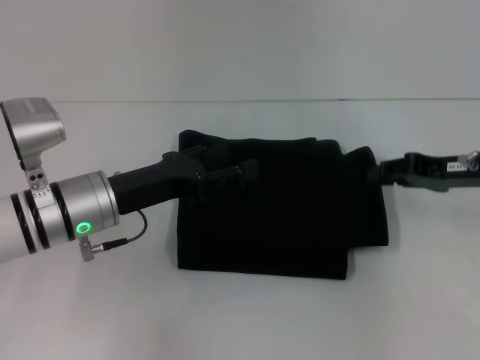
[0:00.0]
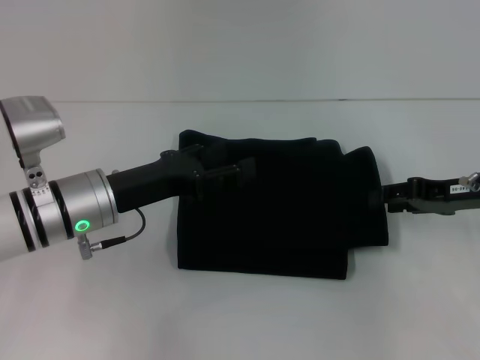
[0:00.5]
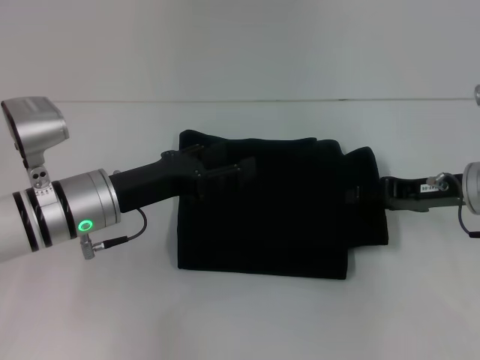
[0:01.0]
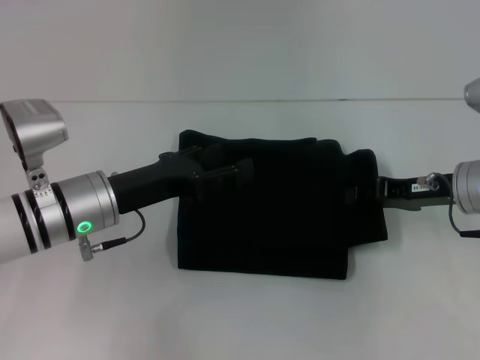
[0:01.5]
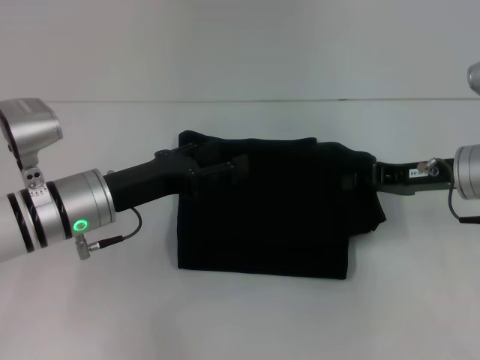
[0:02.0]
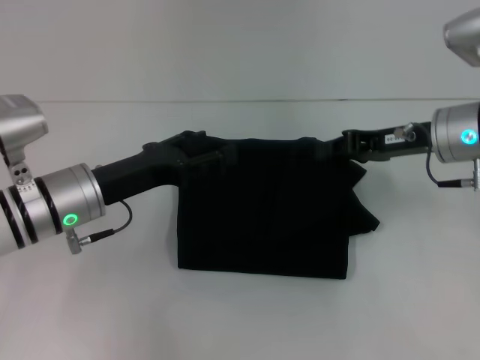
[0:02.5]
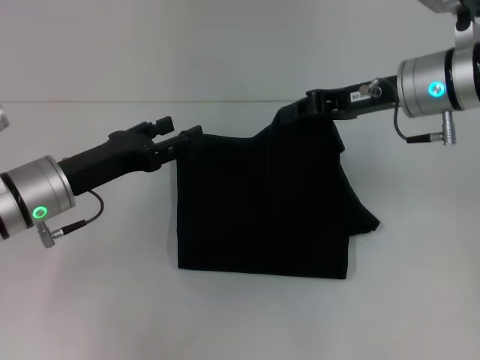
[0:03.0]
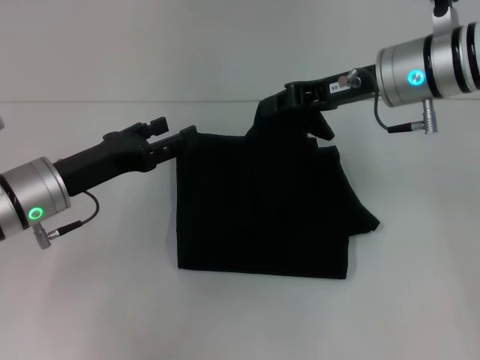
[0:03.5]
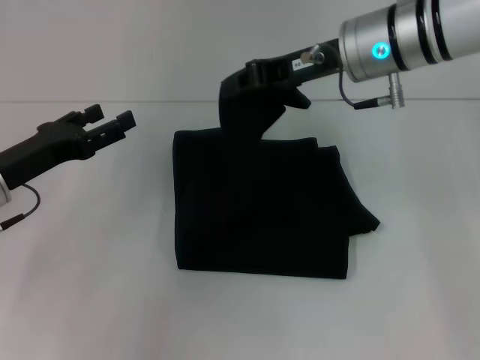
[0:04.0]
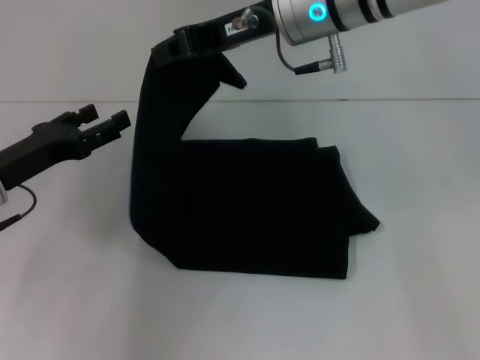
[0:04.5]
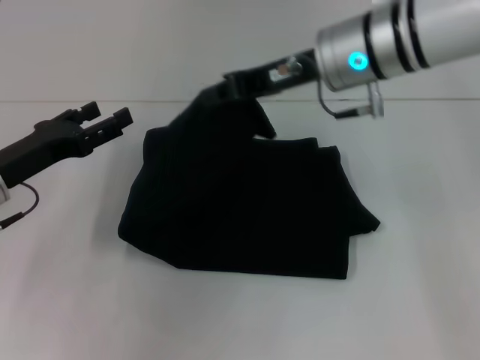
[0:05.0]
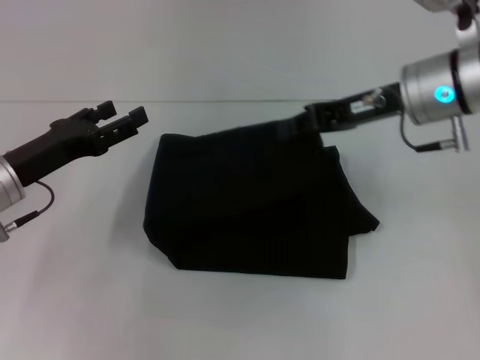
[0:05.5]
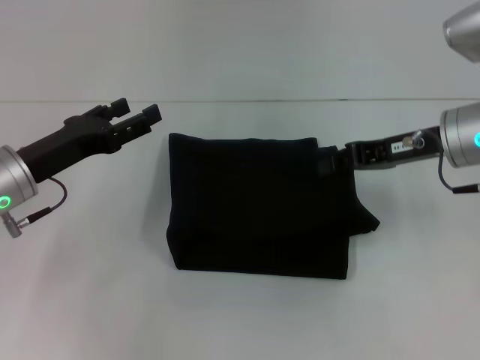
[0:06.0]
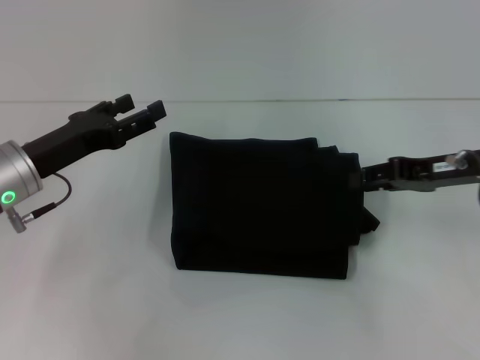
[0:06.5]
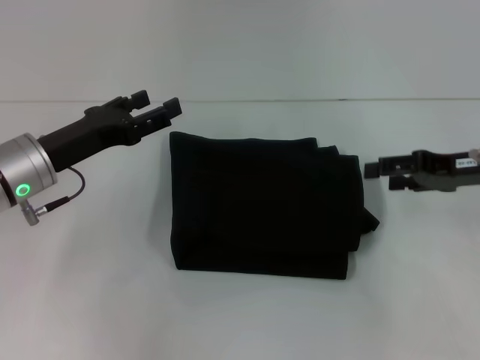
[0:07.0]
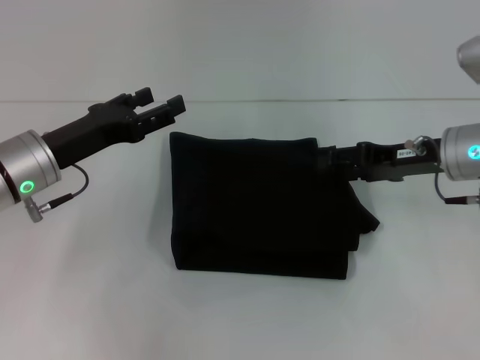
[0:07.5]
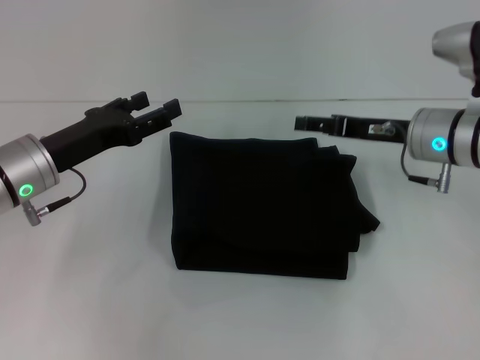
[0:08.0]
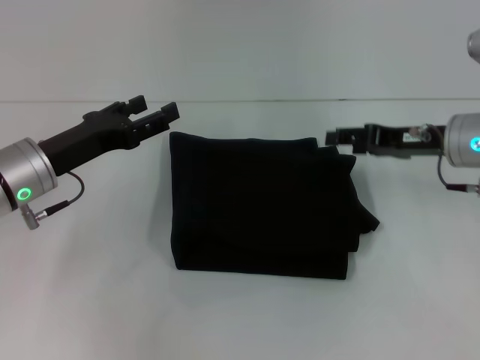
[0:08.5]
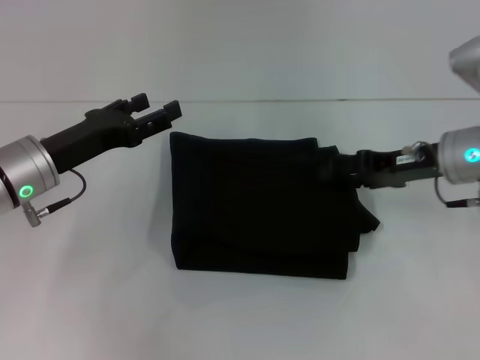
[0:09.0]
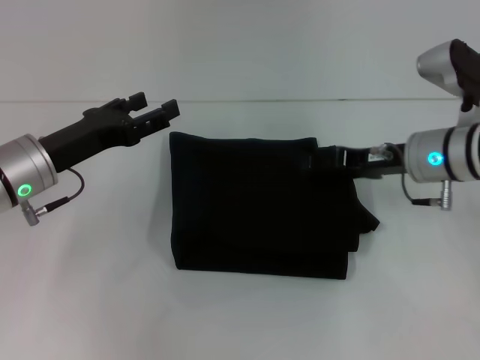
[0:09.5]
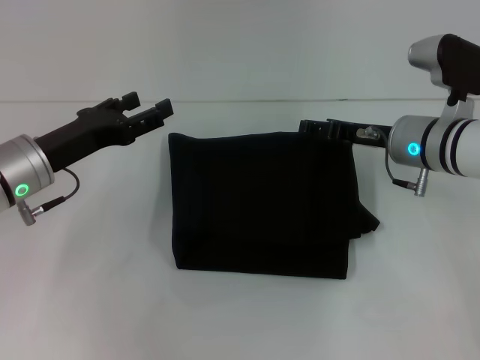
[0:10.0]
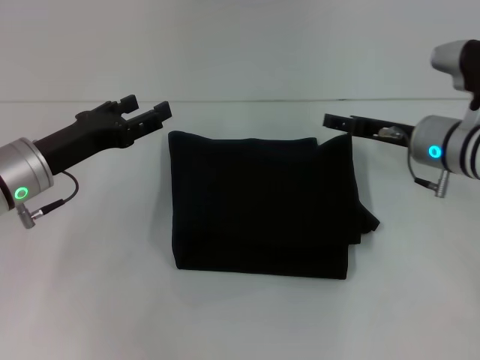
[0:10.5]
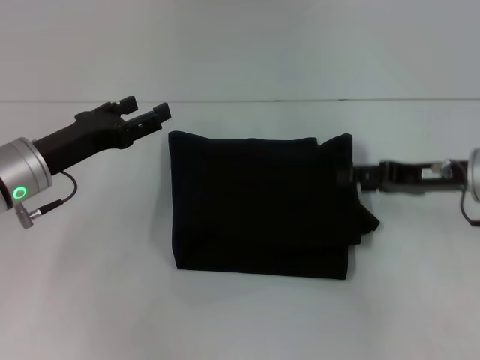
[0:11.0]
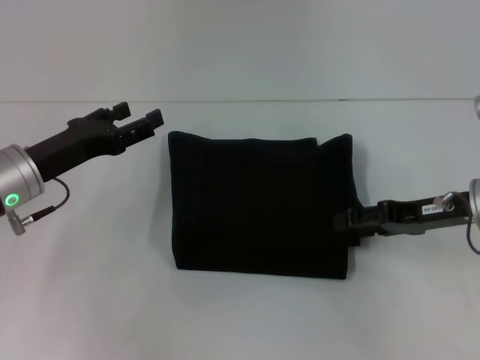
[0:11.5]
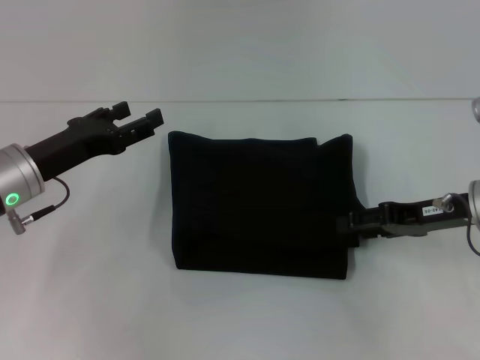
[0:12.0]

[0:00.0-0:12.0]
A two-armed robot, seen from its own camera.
0:00.0 to 0:02.0: The right gripper opens and closes again.
0:02.0 to 0:04.0: The right gripper shifts approximately 20 cm to the left, upward and forward. Meanwhile the left gripper heads to the left, covering about 10 cm.
0:04.0 to 0:06.0: The right gripper is displaced to the right and downward by roughly 10 cm.
0:06.0 to 0:08.0: The right gripper reaches roughly 5 cm to the right, then returns, and opens up.
0:10.0 to 0:12.0: The right gripper heads to the right and backward, covering about 10 cm.

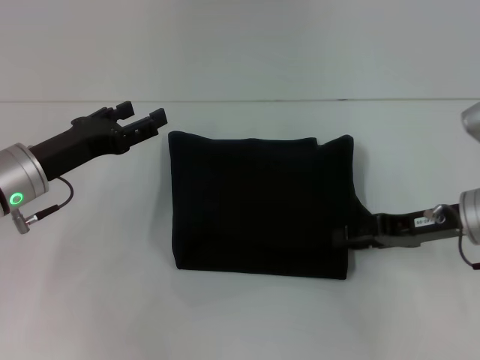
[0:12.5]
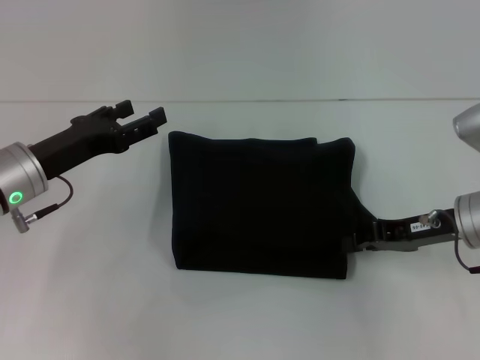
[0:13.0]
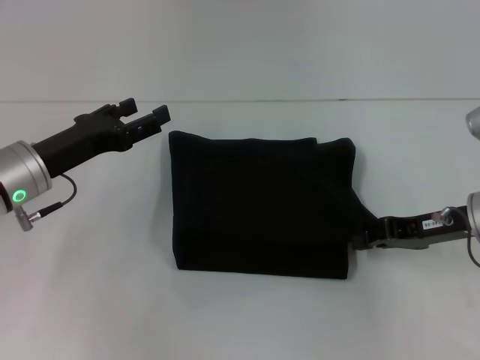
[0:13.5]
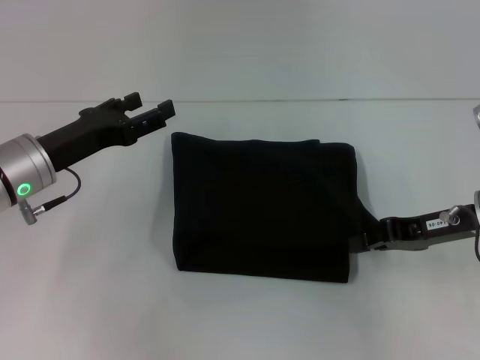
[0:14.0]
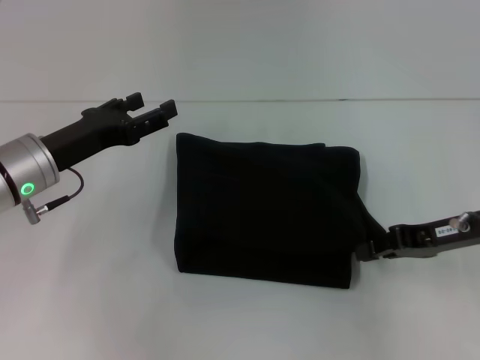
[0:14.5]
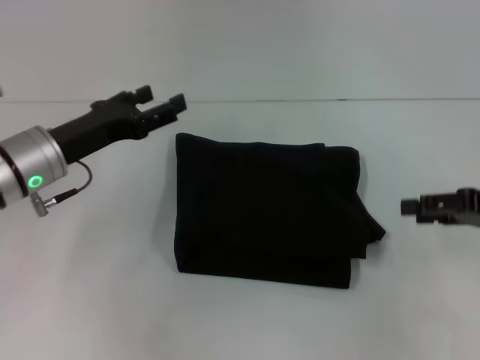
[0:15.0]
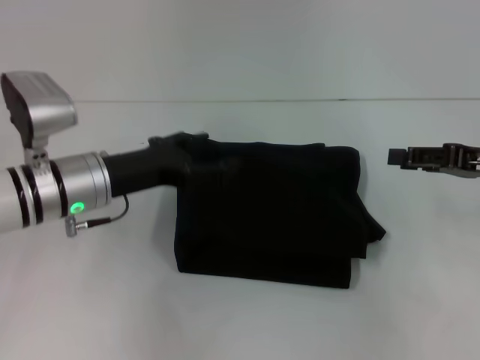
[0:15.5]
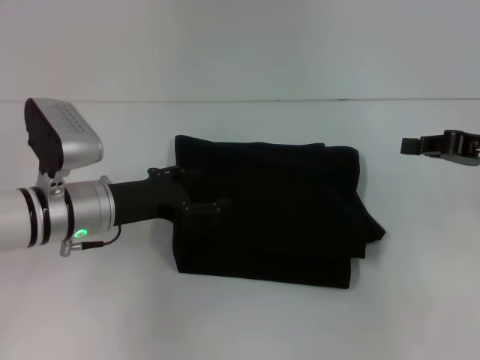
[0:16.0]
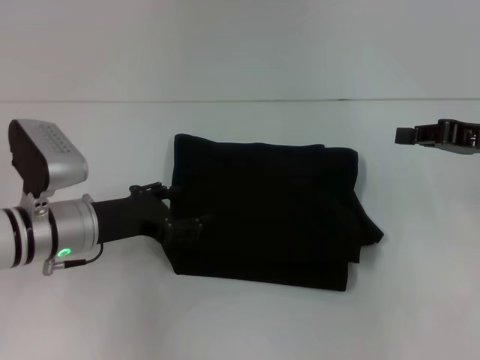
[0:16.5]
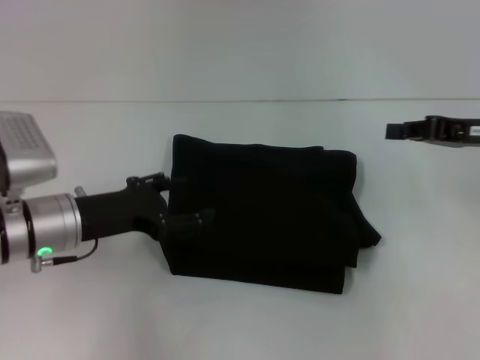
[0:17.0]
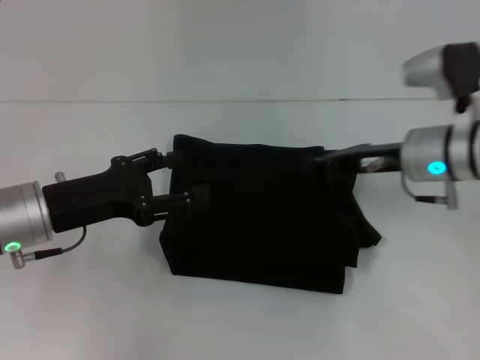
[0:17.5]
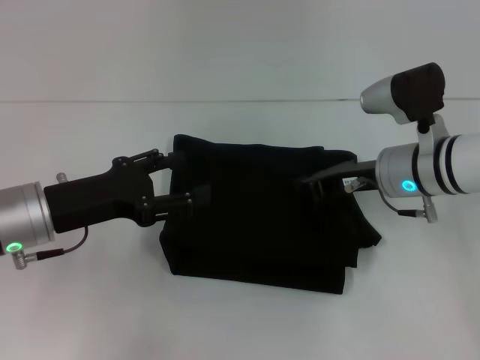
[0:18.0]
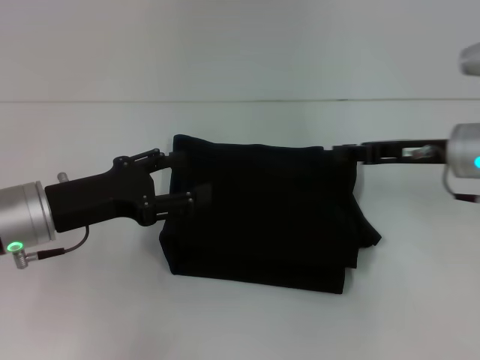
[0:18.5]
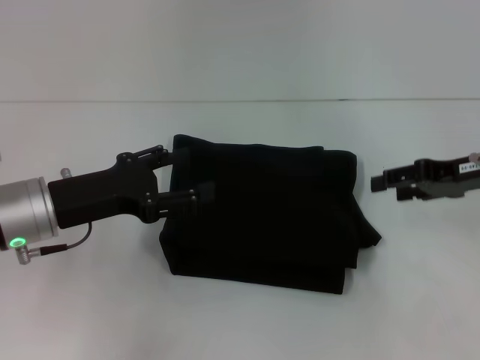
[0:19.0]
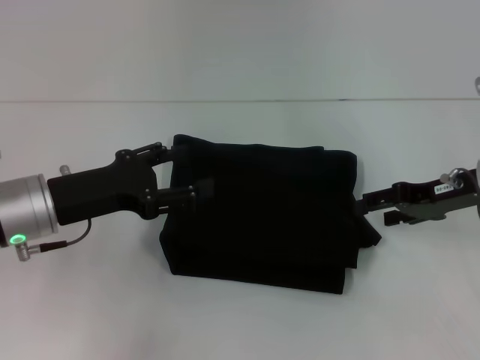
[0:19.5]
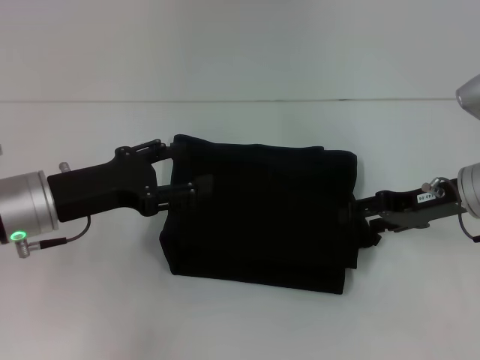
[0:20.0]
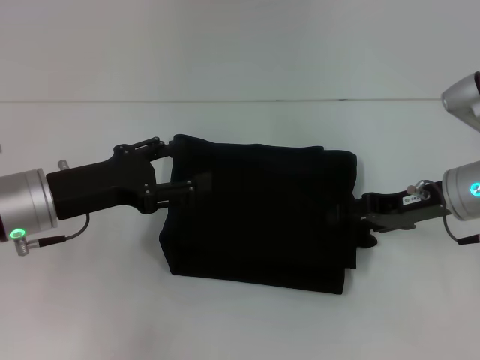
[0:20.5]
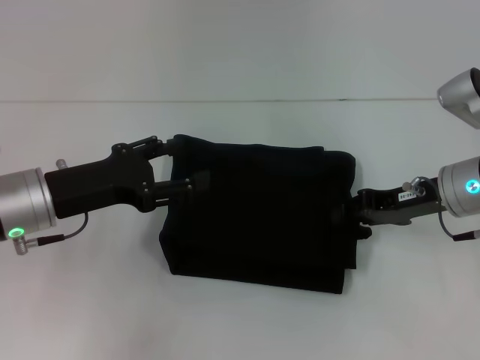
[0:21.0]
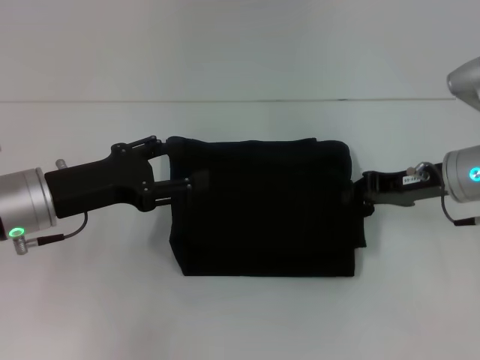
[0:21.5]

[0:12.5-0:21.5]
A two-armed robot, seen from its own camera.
0:12.5 to 0:14.5: The right gripper closes its fingers.
0:14.5 to 0:17.0: The right gripper ends up about 5 cm from where it was, and opens and closes again.
0:17.0 to 0:19.5: The right gripper goes to the left and returns, approximately 10 cm each way, and opens its fingers.
0:19.5 to 0:21.5: The right gripper closes up.

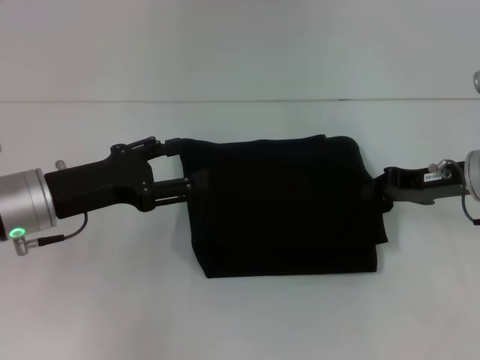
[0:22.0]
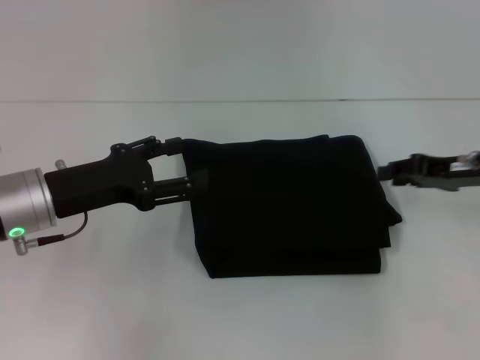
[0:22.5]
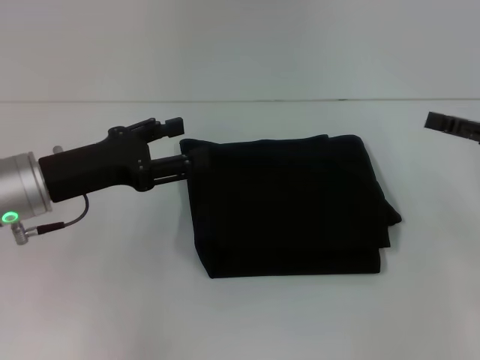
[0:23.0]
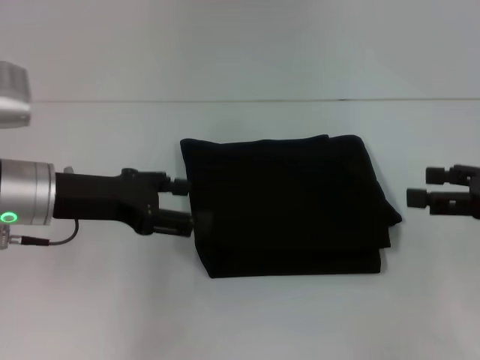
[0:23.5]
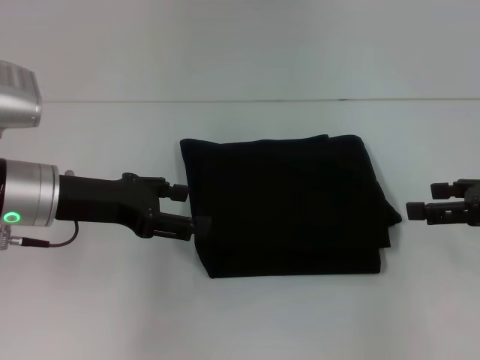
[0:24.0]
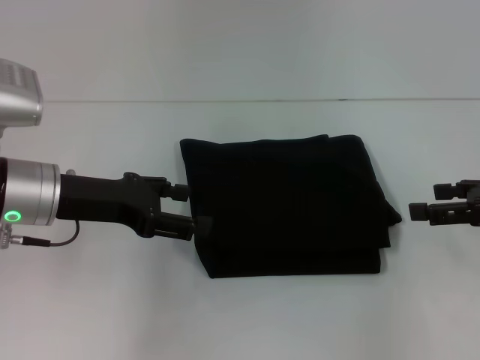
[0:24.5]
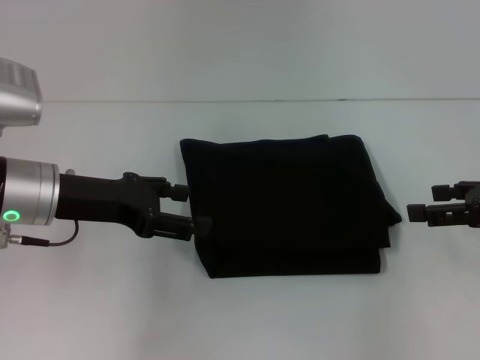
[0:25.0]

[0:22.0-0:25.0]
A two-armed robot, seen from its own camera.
0:22.0 to 0:23.5: The right gripper shifts about 10 cm backward and to the right, and opens its fingers.
0:23.5 to 0:25.0: There are only small adjustments of the grippers.

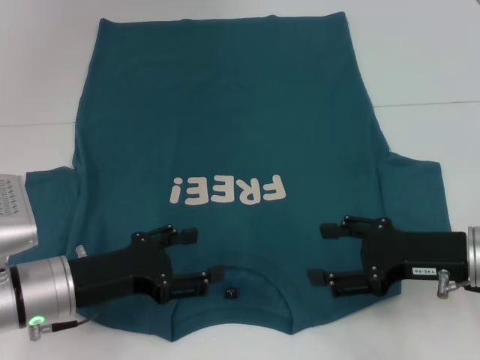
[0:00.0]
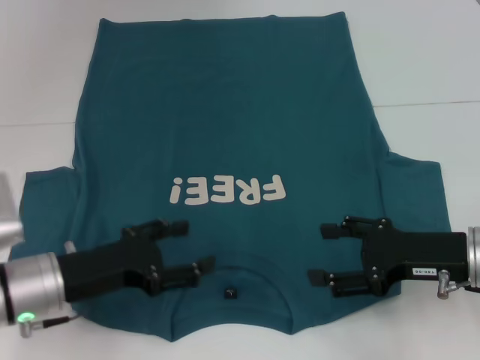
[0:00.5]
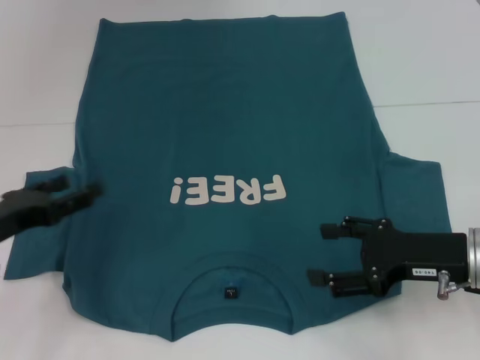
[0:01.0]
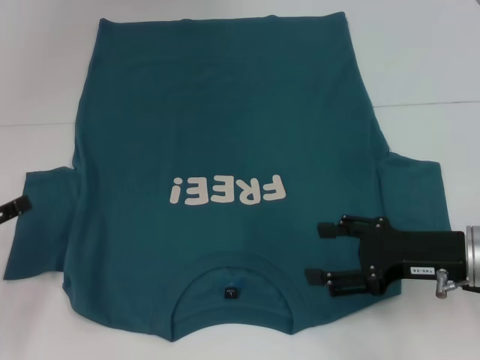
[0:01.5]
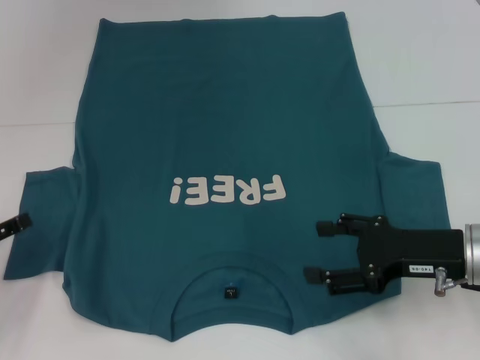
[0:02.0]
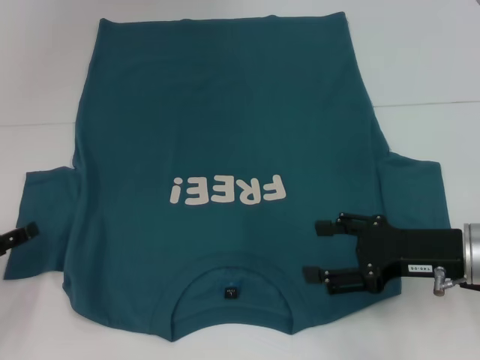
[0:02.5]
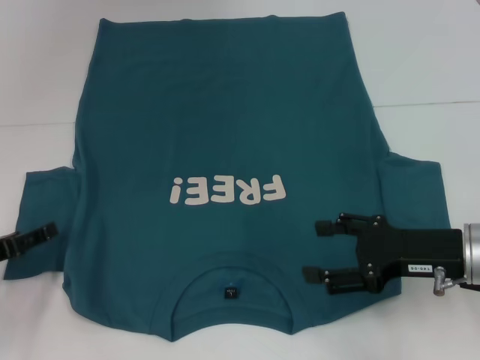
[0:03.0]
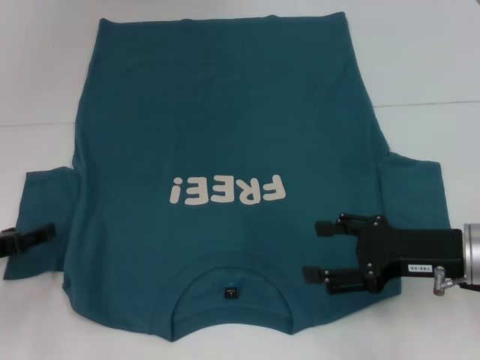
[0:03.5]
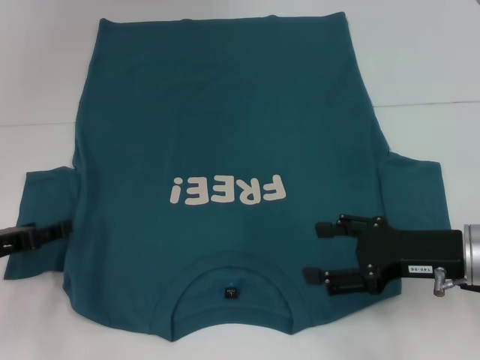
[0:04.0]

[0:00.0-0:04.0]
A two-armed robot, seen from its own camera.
0:00.0 to 0:02.0: The left gripper shifts some 15 cm to the left.
0:02.0 to 0:04.0: The grippers make only small movements.
